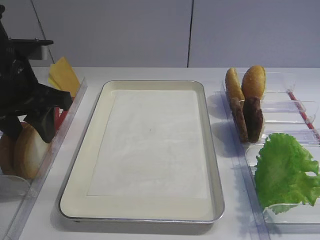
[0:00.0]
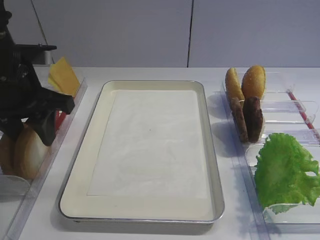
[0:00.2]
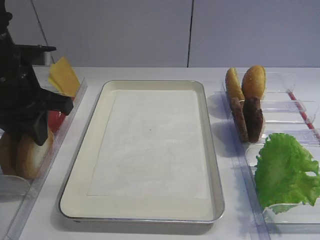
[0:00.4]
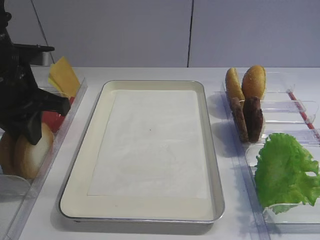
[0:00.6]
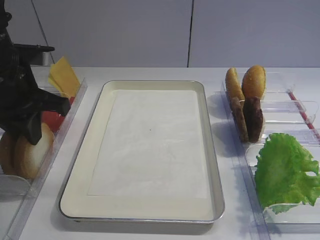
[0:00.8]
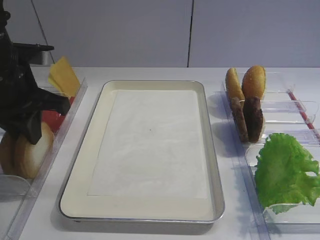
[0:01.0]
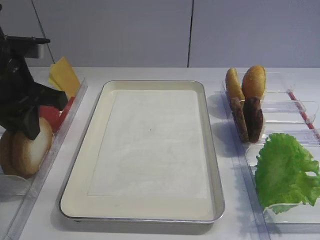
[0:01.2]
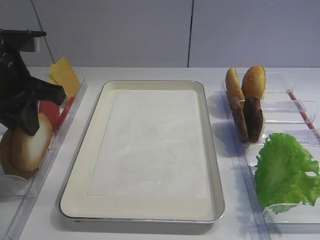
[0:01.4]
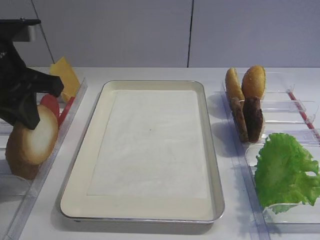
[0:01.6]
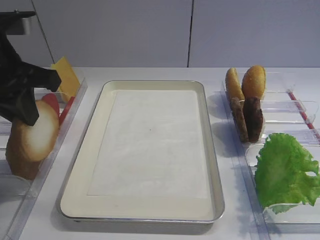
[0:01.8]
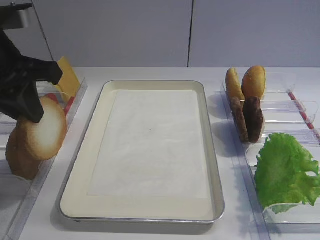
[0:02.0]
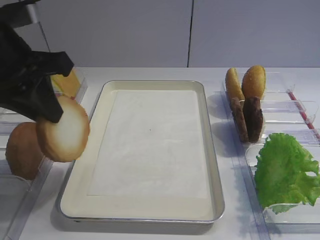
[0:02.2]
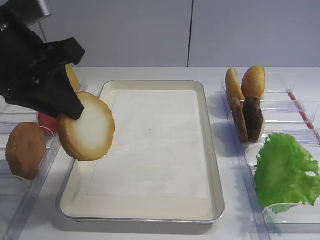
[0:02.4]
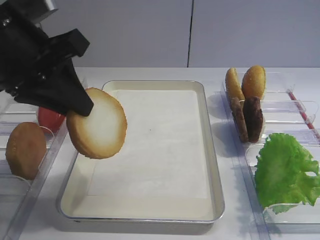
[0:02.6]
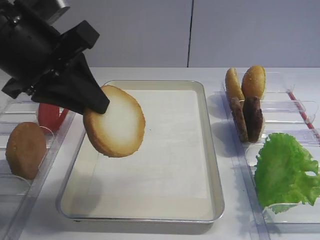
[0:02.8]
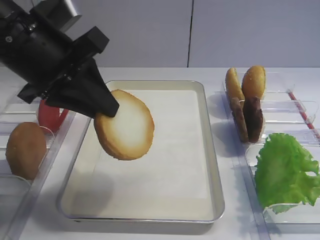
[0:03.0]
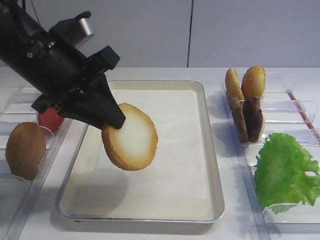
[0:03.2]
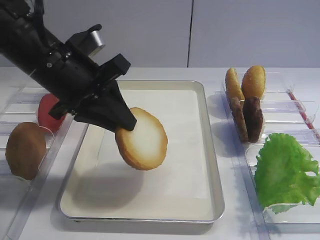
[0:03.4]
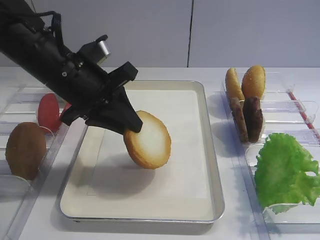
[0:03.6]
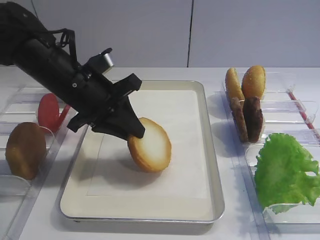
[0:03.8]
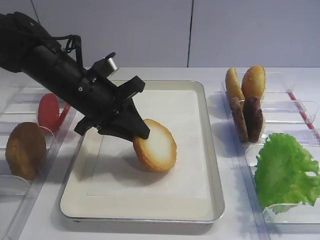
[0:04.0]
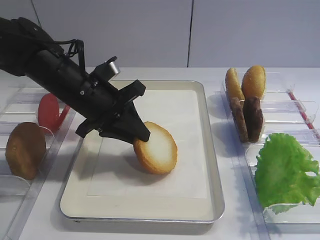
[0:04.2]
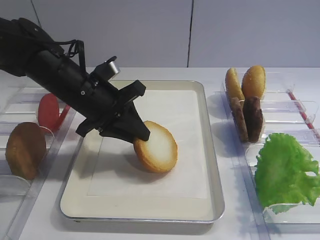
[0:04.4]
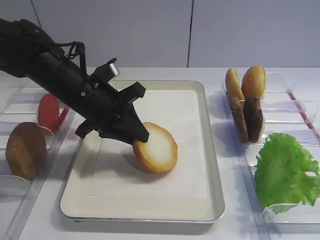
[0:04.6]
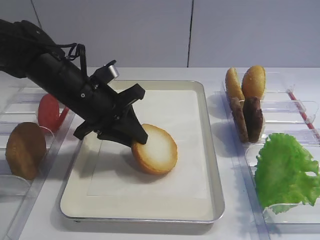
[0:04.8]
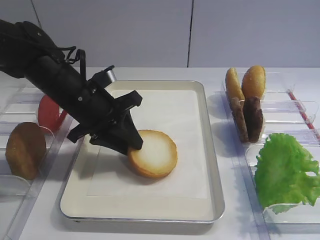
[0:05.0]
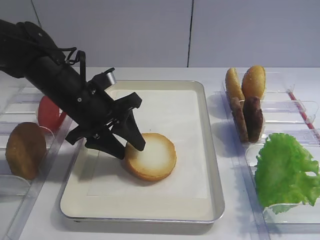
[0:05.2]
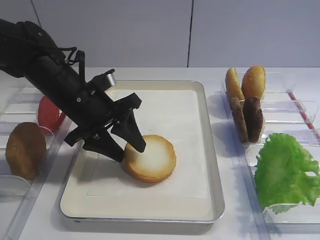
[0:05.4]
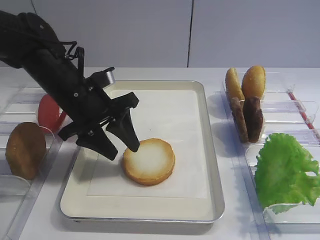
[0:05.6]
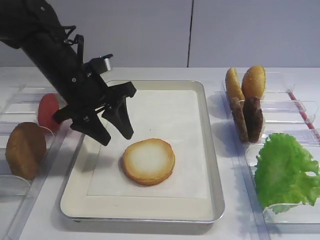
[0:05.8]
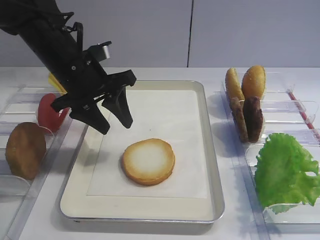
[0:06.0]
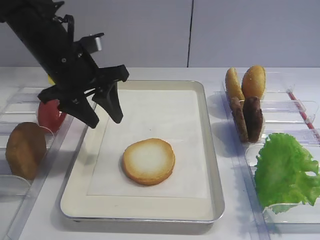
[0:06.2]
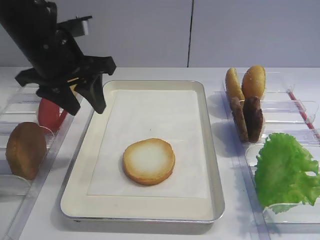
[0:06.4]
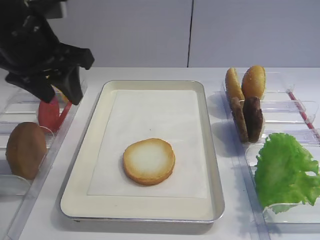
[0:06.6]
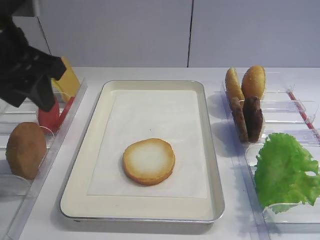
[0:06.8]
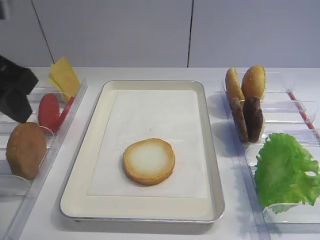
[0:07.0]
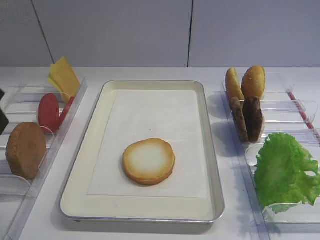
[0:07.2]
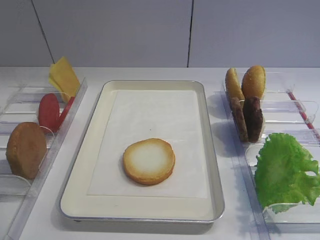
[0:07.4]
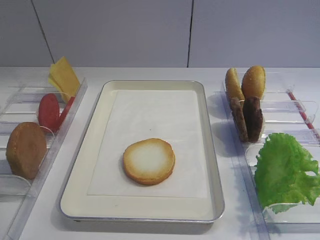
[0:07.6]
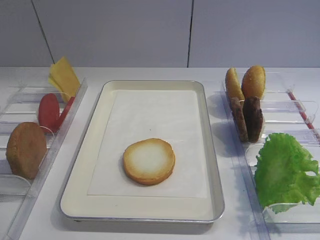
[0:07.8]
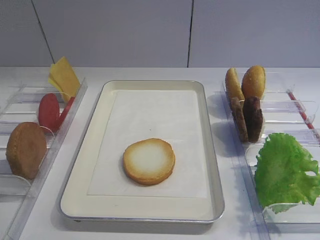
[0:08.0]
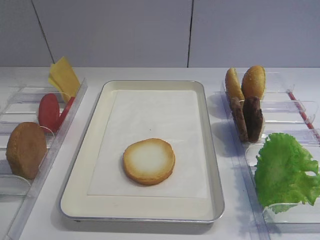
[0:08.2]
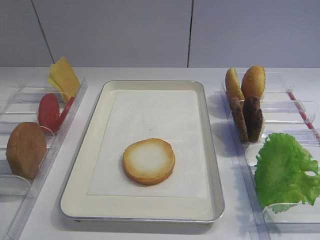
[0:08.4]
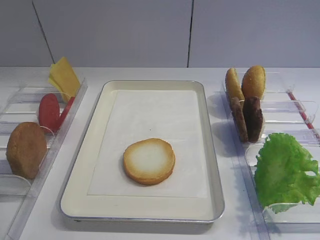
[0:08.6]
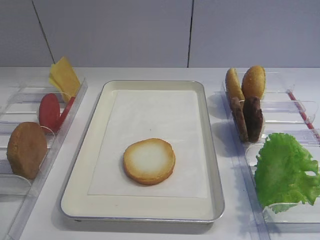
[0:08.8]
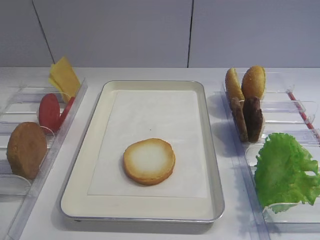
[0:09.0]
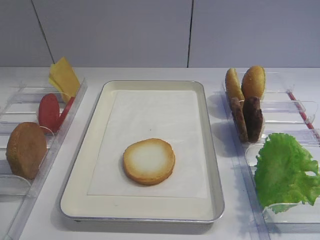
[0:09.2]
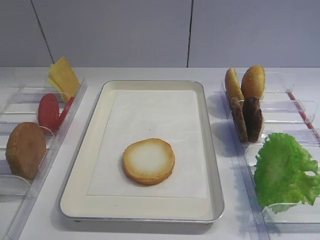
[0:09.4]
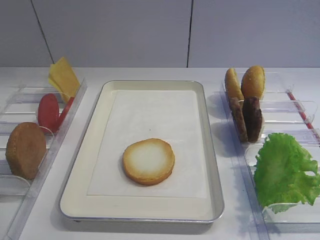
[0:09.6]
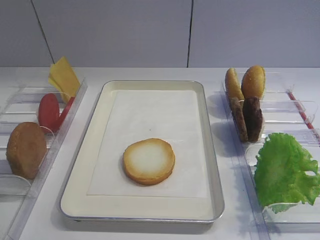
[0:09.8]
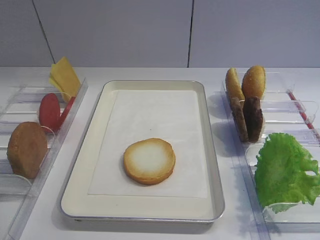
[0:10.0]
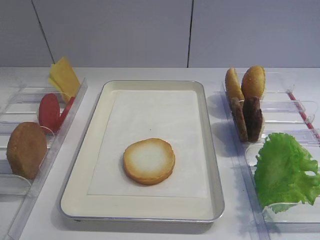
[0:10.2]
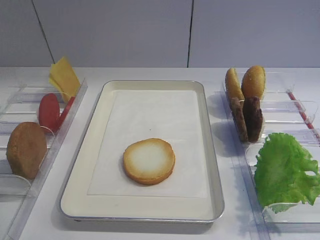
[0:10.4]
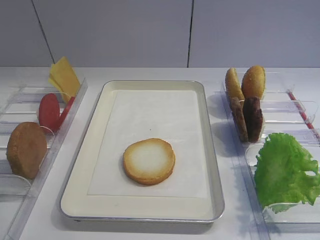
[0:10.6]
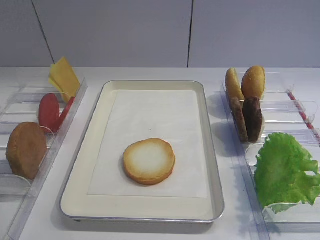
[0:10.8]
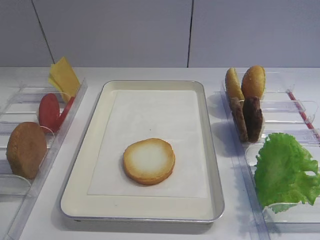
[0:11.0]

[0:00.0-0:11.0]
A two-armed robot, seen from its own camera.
Step, 0:02.0 to 0:05.4: Place the bread slice on the tray with the left gripper.
0:00.0 to 0:01.6: The left gripper closes.
0:01.6 to 0:03.2: The left gripper moves to the right, some 5 cm.
0:03.2 to 0:04.8: The left gripper travels downward and forward by some 10 cm.
0:04.8 to 0:06.2: The left gripper heads upward, covering some 5 cm, and opens.
0:06.2 to 0:07.8: The left gripper is displaced backward and to the left by about 30 cm.

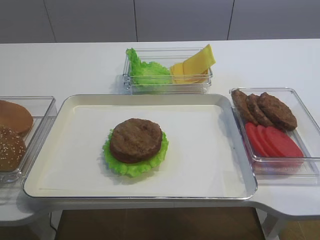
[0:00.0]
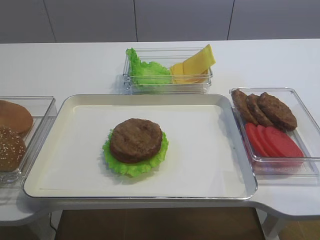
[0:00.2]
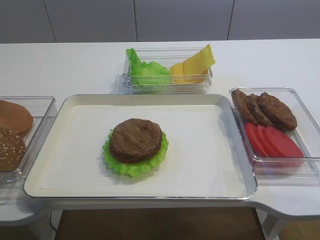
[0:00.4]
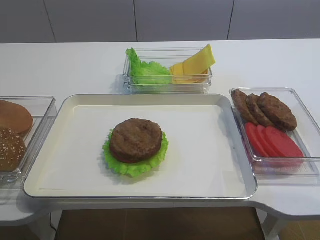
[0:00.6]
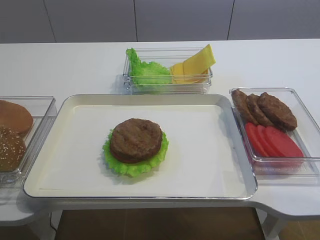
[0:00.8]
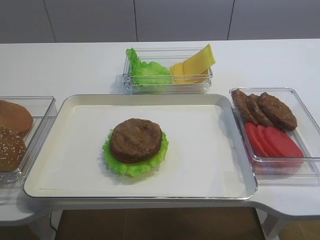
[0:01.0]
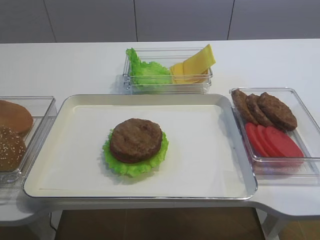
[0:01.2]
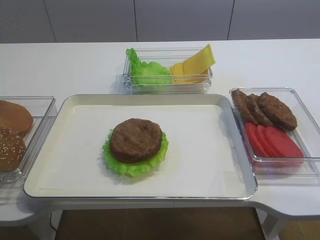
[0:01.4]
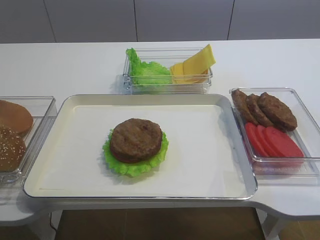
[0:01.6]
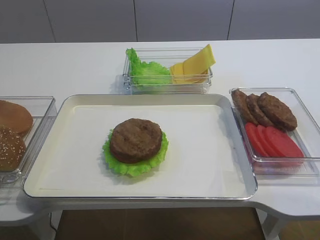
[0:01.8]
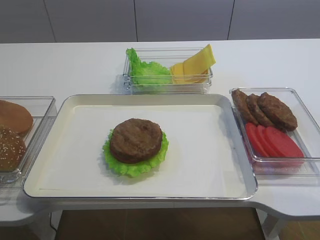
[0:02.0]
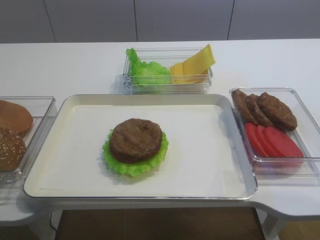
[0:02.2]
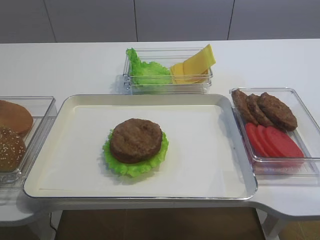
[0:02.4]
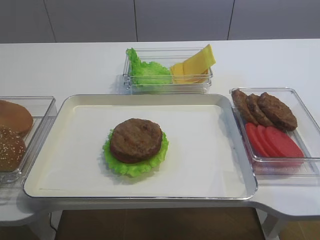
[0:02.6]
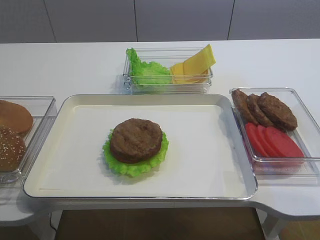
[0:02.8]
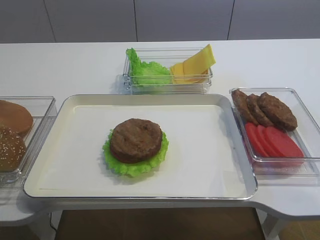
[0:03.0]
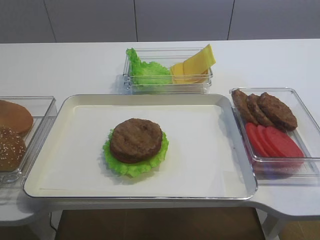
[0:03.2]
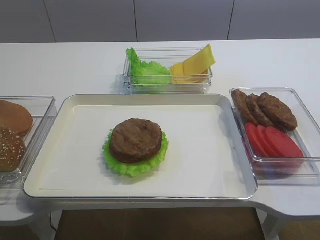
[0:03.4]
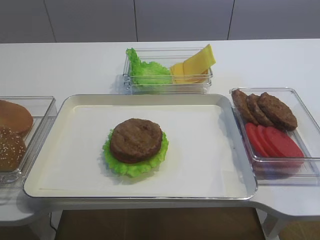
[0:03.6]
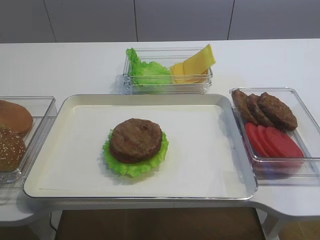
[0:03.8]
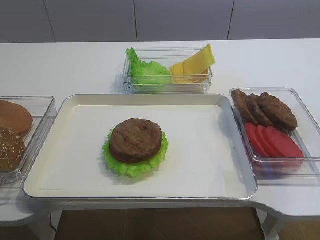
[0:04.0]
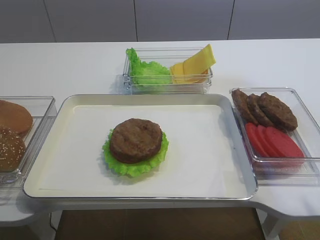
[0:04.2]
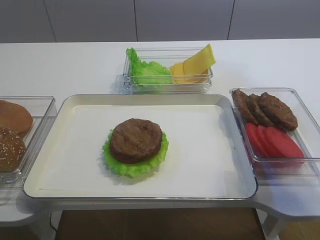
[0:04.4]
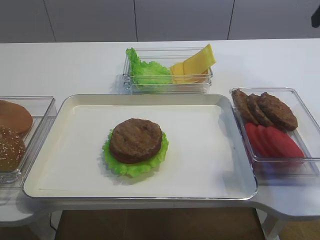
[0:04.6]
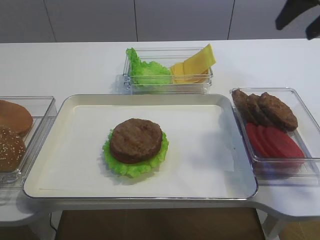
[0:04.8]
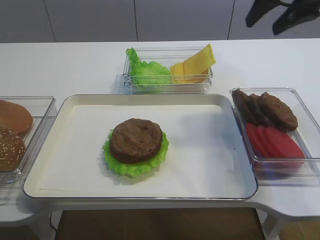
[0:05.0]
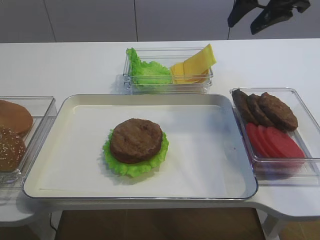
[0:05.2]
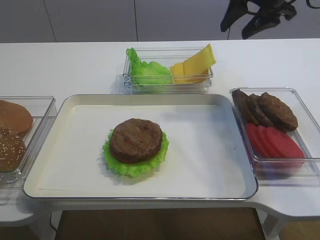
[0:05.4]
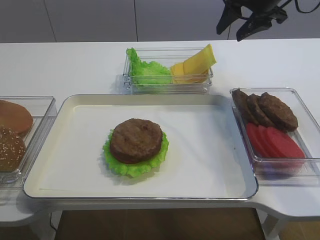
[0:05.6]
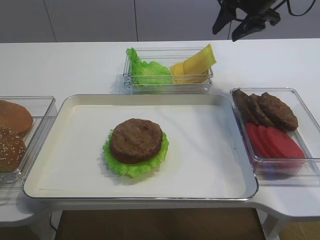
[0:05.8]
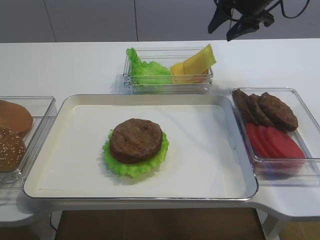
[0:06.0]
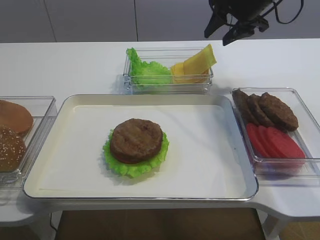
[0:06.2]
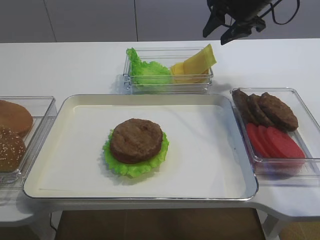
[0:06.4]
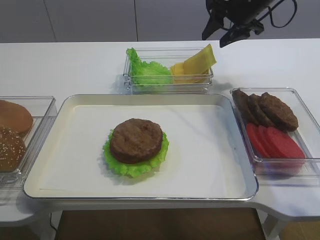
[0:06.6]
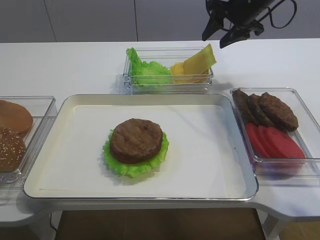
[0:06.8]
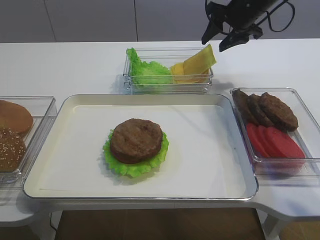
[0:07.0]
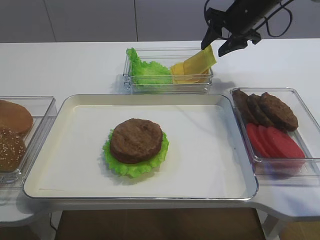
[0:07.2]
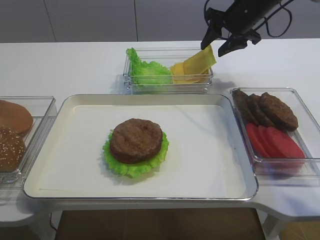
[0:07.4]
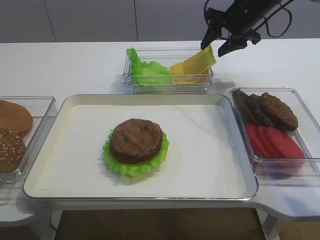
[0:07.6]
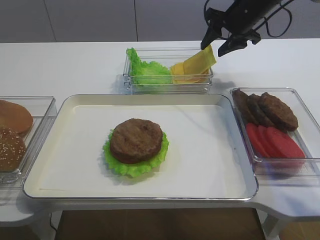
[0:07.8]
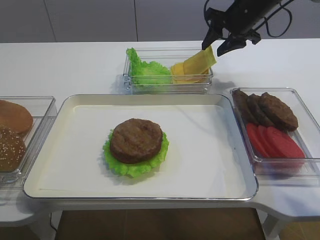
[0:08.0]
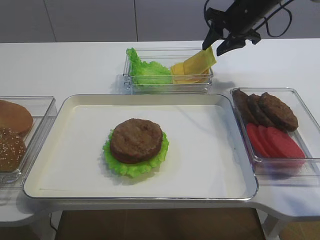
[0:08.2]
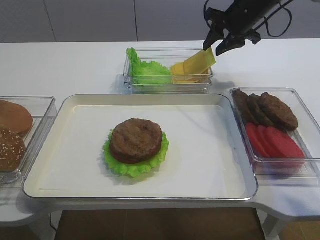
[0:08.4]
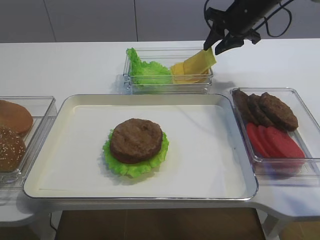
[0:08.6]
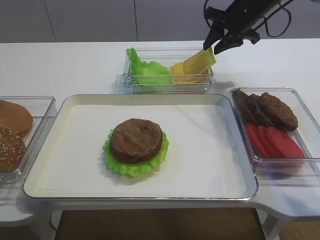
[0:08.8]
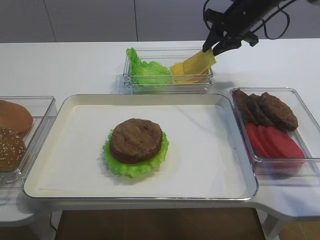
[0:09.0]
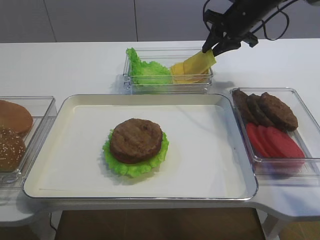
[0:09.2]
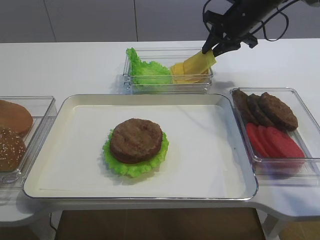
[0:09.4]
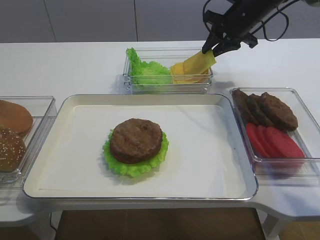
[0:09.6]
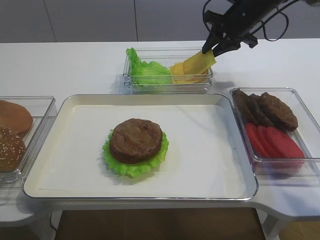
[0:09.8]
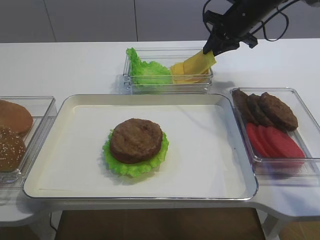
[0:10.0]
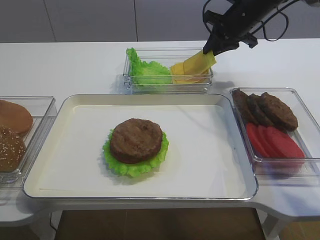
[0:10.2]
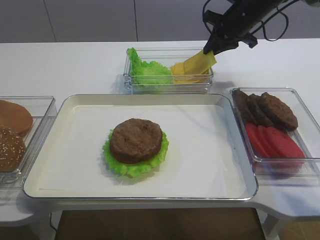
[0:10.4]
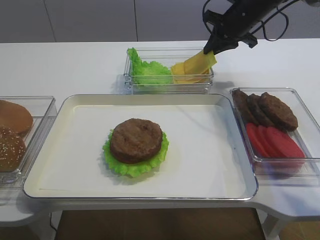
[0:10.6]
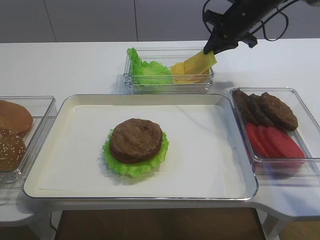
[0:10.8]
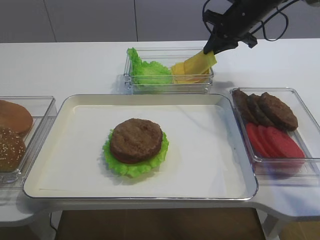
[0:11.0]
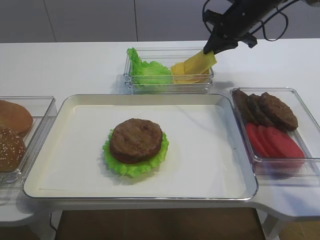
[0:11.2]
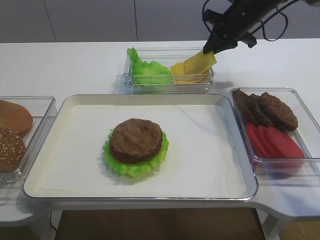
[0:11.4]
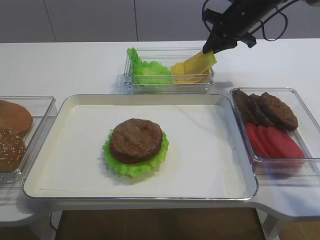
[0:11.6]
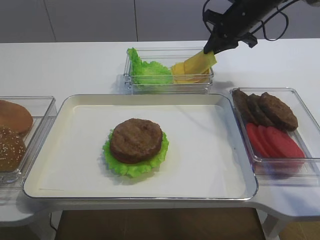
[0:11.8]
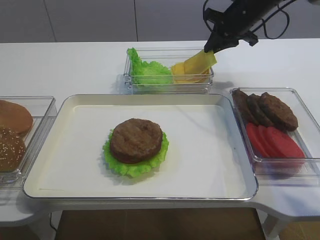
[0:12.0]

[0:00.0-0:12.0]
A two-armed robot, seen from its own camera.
0:03.0 to 0:04.4: The right gripper is displaced forward and upward by about 30 cm, and opens.
0:04.4 to 0:06.0: The right gripper shifts some 25 cm forward and to the left.
0:06.0 to 0:07.6: The right gripper changes place by roughly 5 cm.
0:07.6 to 0:09.0: The right gripper closes up.
0:09.0 to 0:12.0: Neither gripper changes place.
